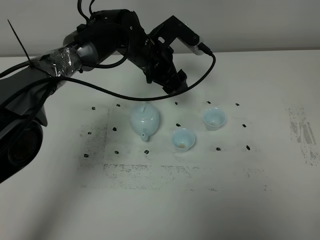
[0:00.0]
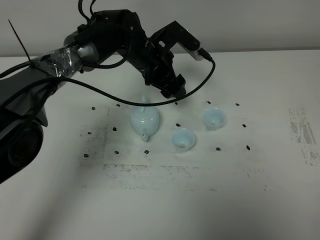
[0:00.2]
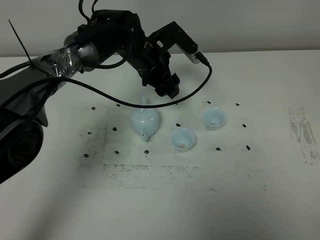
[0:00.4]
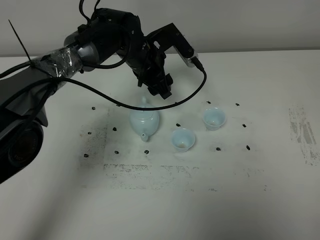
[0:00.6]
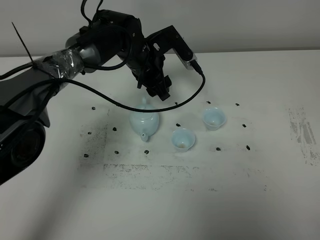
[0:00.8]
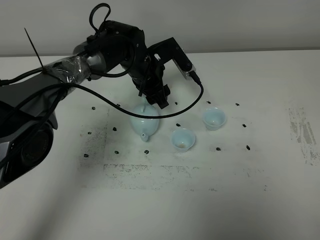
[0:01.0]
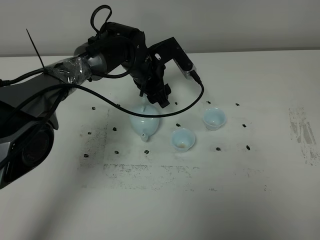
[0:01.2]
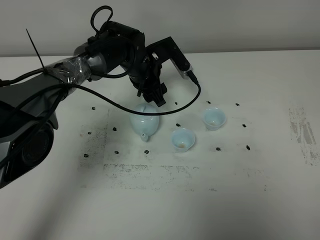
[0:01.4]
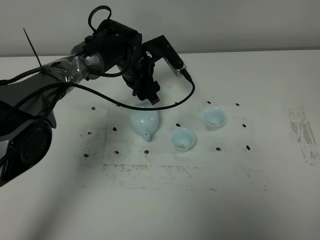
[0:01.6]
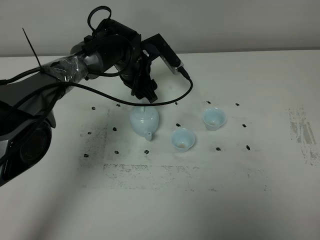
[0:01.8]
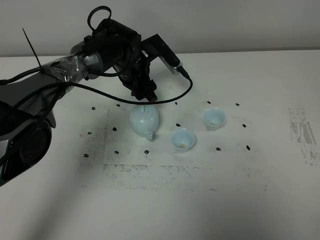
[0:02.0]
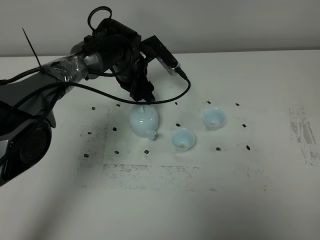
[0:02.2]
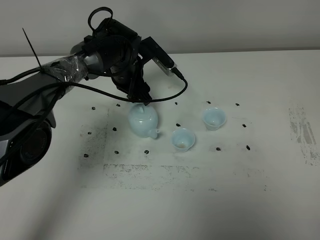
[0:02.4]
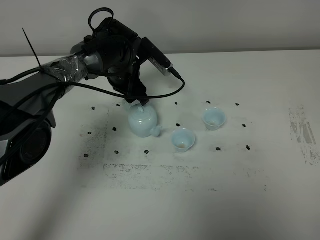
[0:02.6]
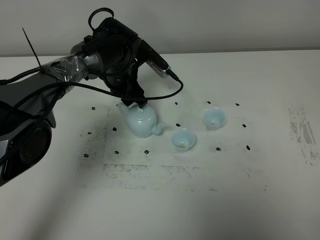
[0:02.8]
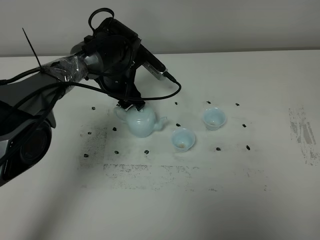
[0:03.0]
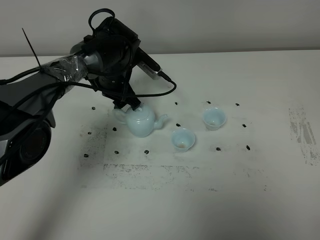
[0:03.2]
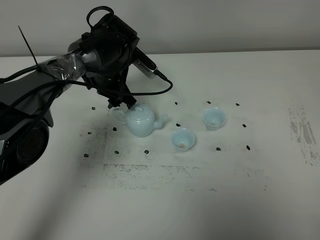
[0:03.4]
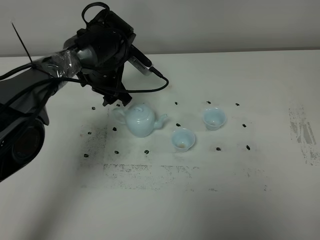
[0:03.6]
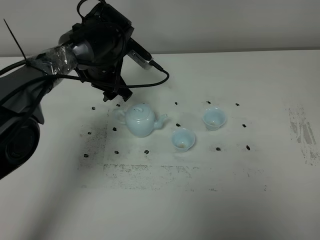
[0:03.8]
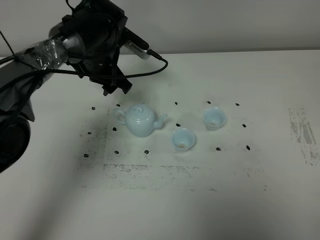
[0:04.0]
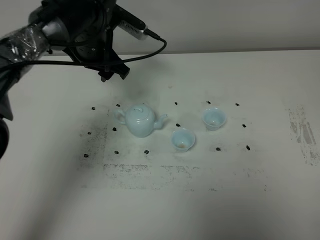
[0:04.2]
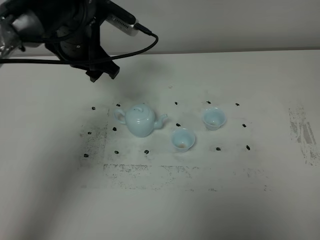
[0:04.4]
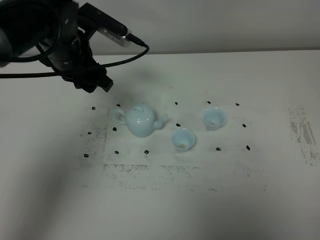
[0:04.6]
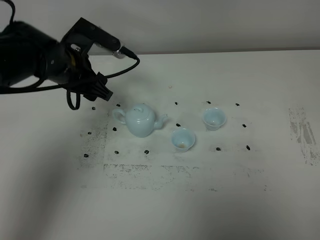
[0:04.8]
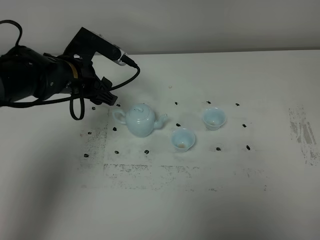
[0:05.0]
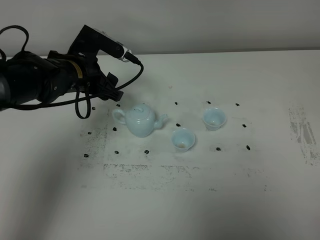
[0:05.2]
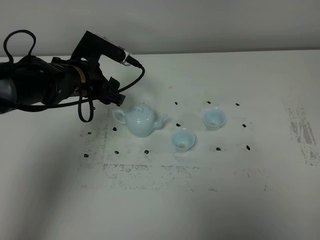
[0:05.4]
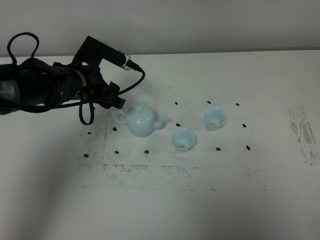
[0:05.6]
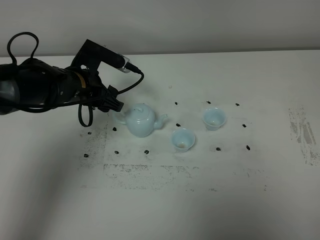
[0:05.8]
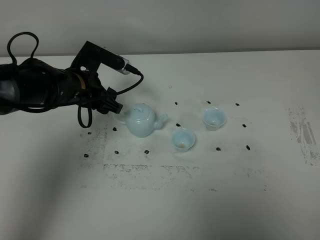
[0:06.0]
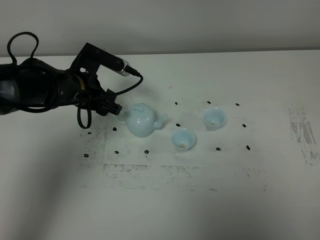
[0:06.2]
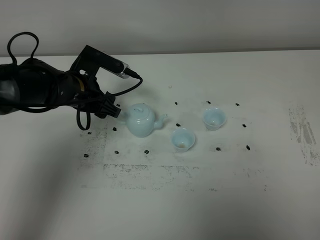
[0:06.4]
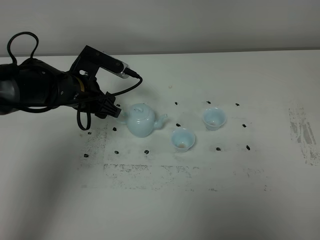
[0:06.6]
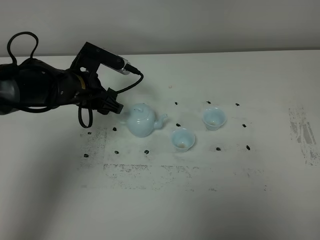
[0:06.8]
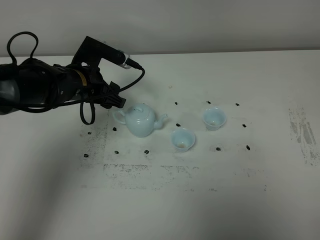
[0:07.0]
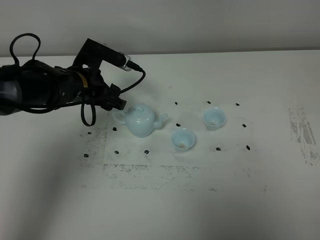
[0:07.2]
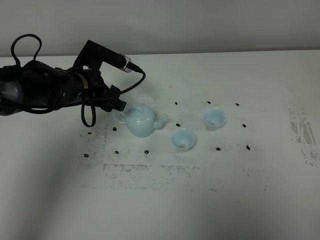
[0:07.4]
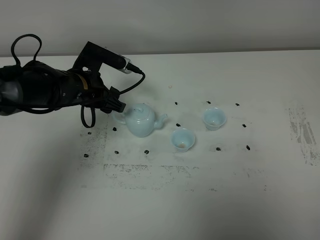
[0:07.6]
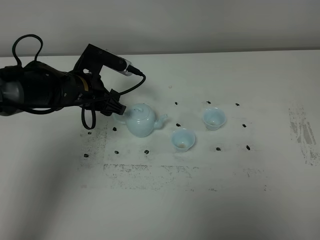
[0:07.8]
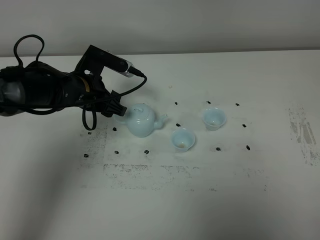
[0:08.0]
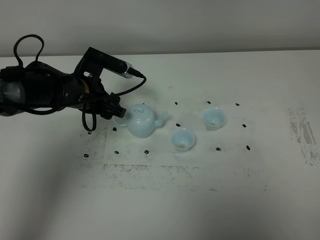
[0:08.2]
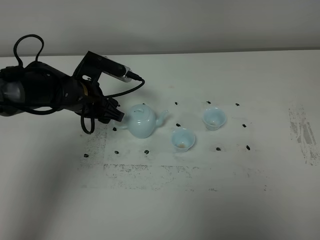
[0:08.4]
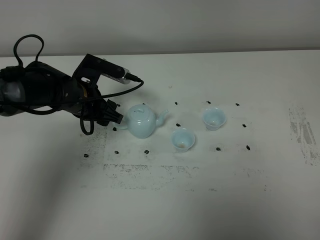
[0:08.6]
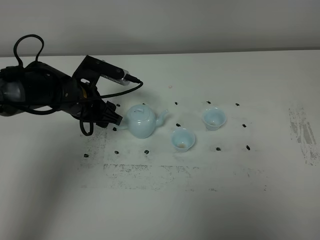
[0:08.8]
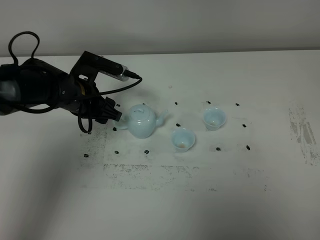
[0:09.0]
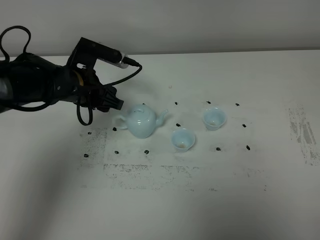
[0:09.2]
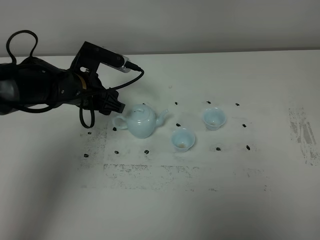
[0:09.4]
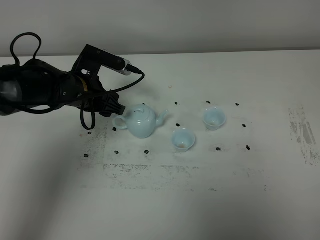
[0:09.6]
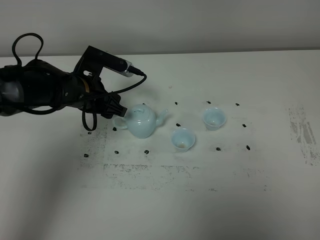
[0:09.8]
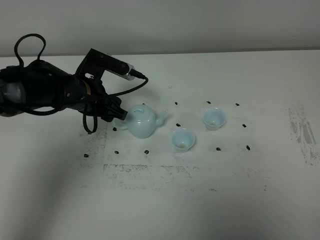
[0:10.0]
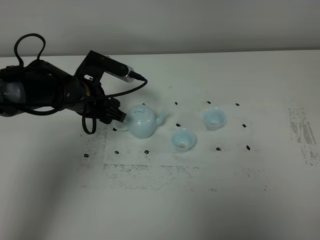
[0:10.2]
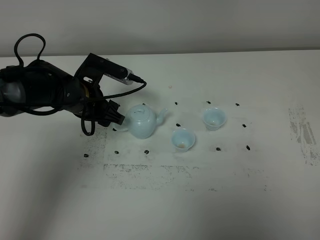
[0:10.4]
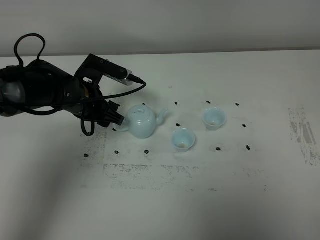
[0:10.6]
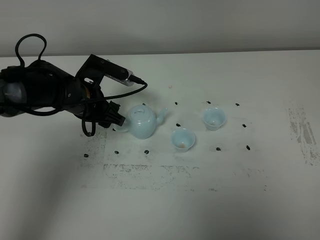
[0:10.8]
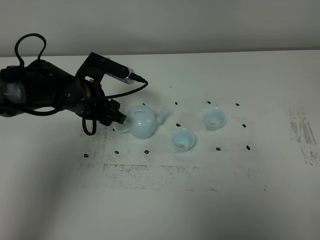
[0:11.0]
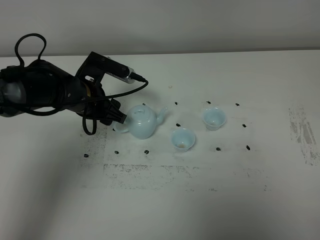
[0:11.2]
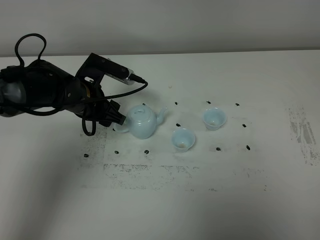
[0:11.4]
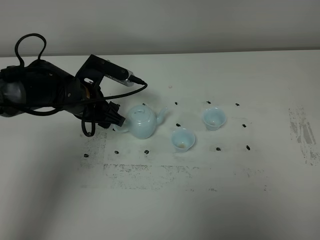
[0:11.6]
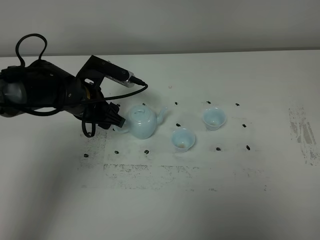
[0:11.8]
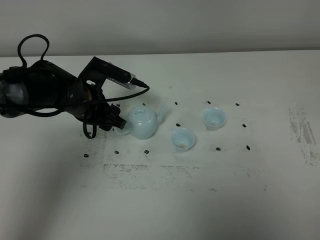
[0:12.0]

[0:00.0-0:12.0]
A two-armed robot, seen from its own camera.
Task of the whole recording: grasp the blue porcelain teapot and pour the tea into the two blue porcelain teacups one by one, put the blue porcelain teapot back in its original place.
0:00.0 to 0:01.6: The left gripper ends up about 5 cm from where it was.
0:03.0 to 0:04.4: The left gripper is displaced upward and backward by about 15 cm.
0:04.4 to 0:06.0: The left gripper heads downward, covering roughly 10 cm.
0:06.0 to 0:07.6: Both grippers stay about where they are.
0:07.6 to 0:10.4: There are only small adjustments of the grippers.
0:10.4 to 0:12.0: Neither gripper changes place.

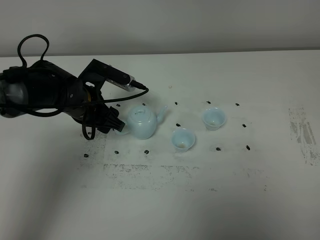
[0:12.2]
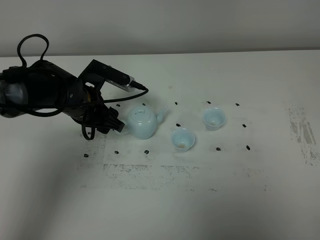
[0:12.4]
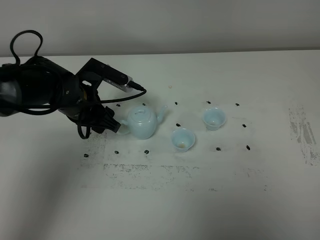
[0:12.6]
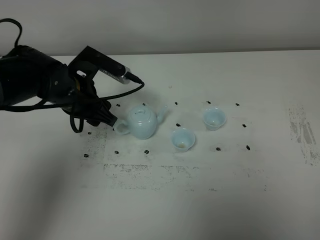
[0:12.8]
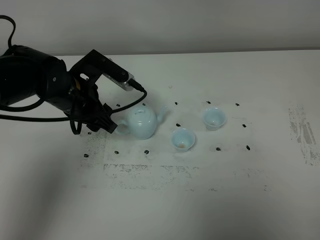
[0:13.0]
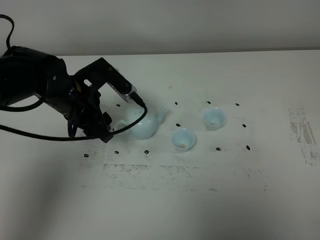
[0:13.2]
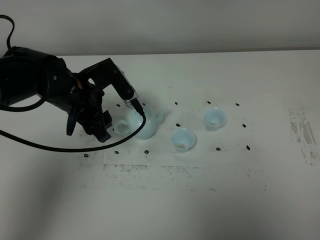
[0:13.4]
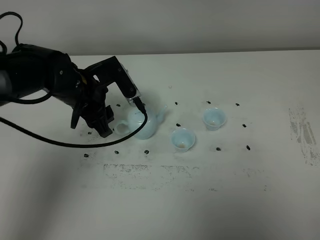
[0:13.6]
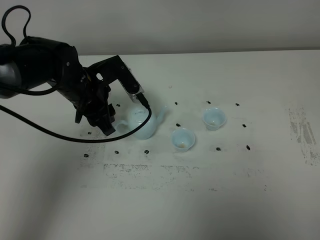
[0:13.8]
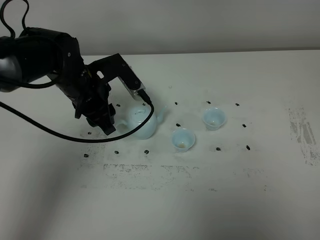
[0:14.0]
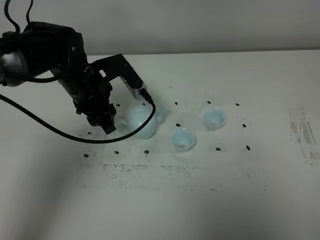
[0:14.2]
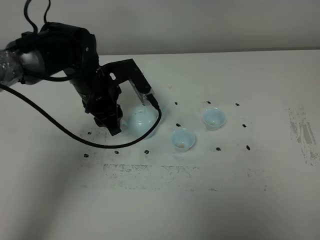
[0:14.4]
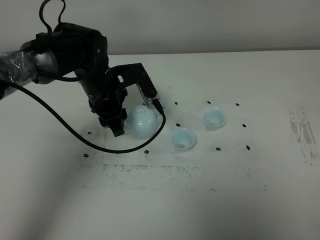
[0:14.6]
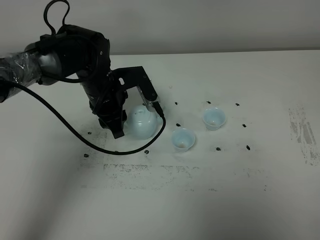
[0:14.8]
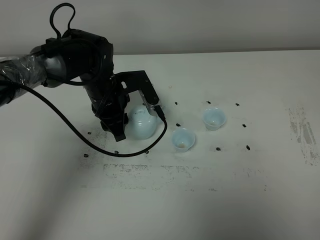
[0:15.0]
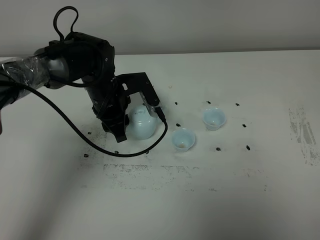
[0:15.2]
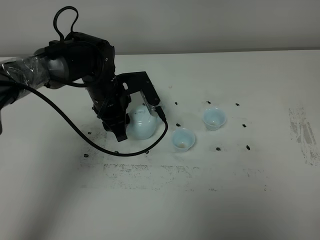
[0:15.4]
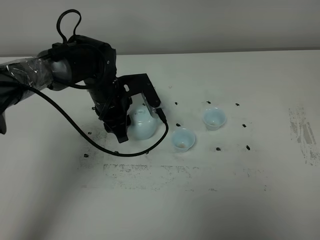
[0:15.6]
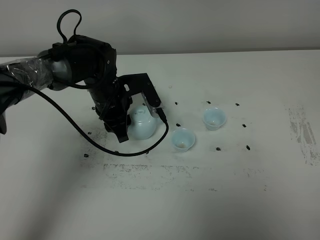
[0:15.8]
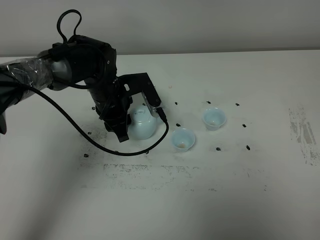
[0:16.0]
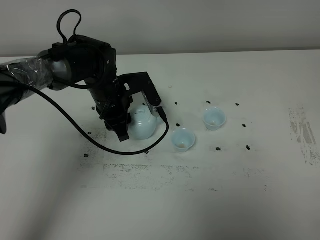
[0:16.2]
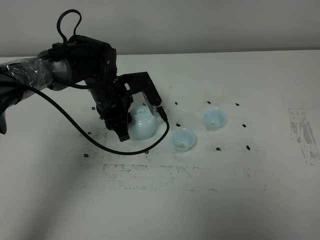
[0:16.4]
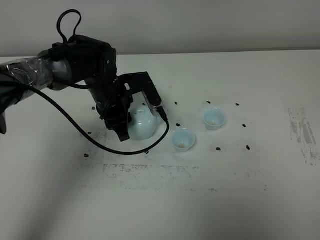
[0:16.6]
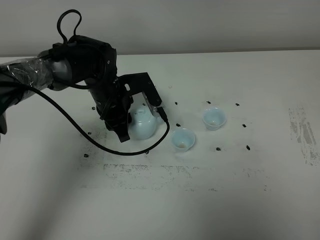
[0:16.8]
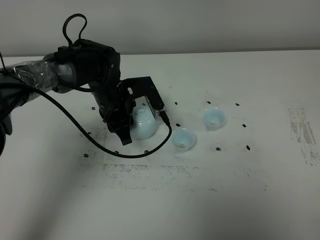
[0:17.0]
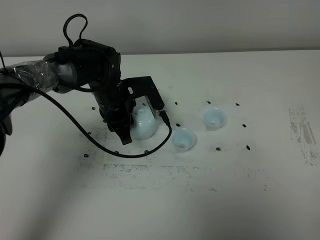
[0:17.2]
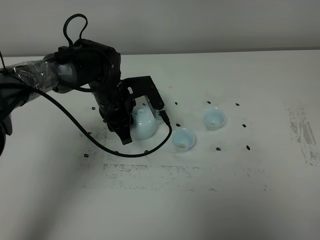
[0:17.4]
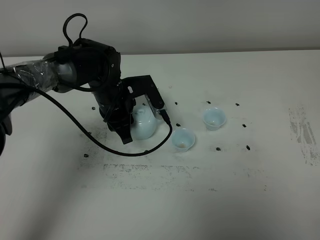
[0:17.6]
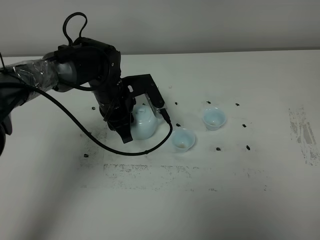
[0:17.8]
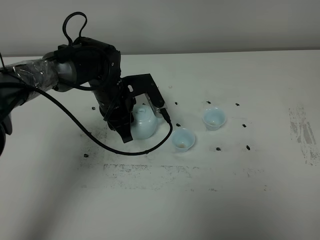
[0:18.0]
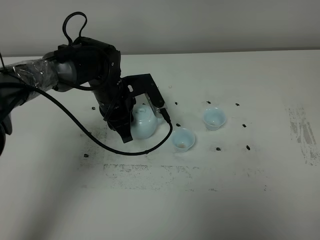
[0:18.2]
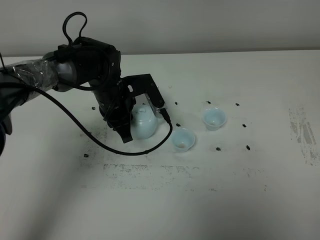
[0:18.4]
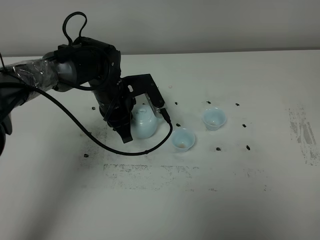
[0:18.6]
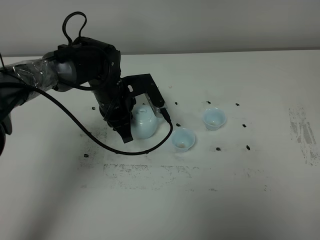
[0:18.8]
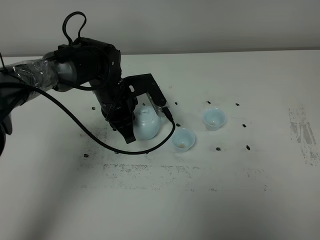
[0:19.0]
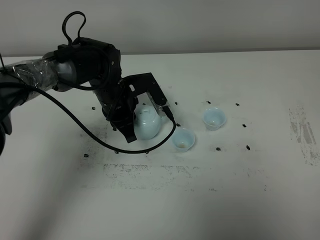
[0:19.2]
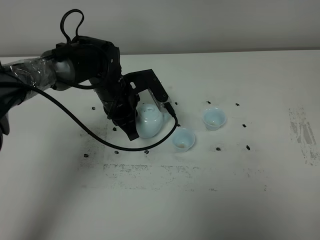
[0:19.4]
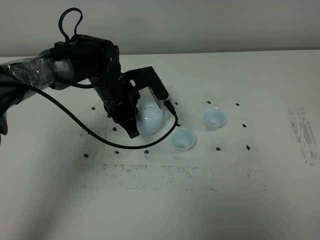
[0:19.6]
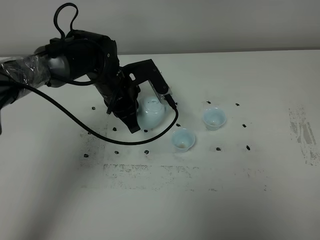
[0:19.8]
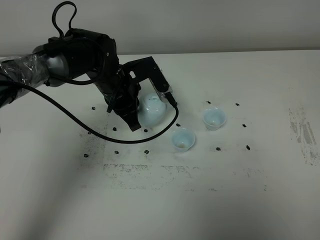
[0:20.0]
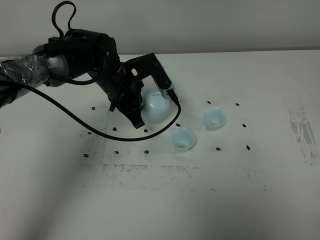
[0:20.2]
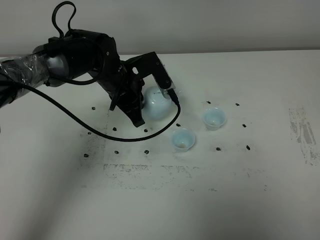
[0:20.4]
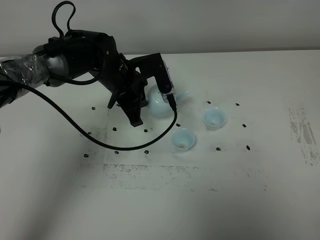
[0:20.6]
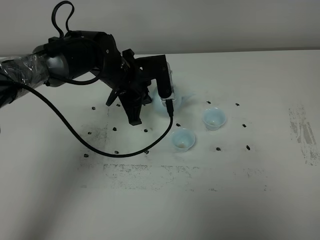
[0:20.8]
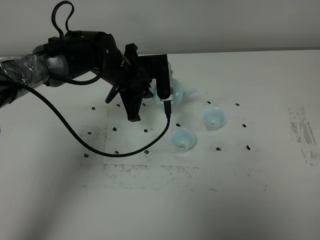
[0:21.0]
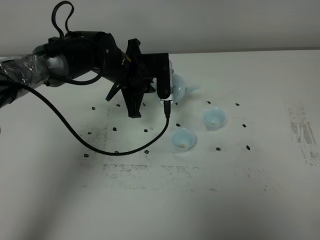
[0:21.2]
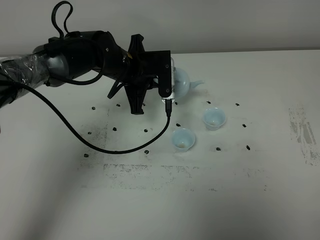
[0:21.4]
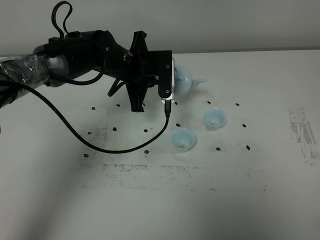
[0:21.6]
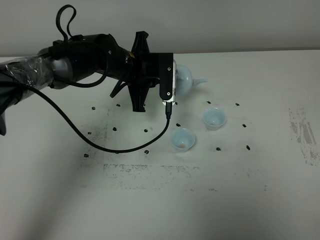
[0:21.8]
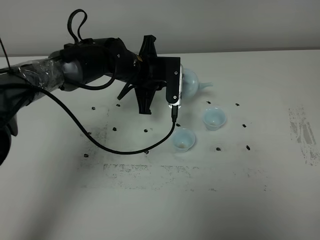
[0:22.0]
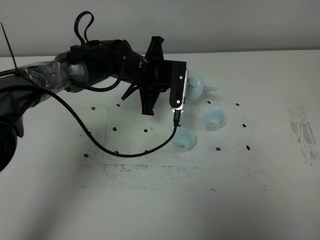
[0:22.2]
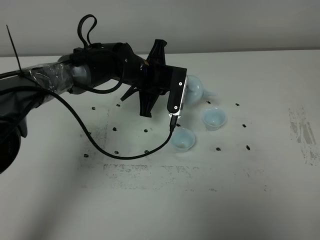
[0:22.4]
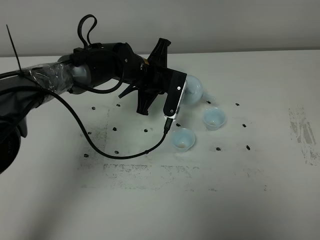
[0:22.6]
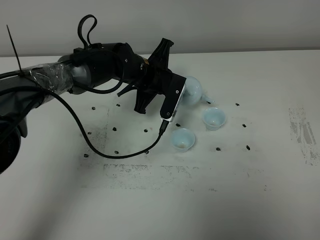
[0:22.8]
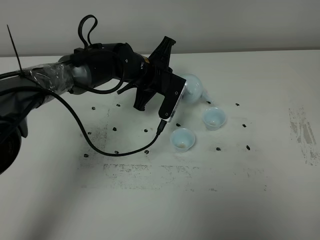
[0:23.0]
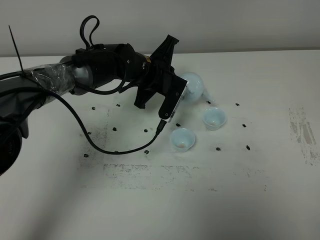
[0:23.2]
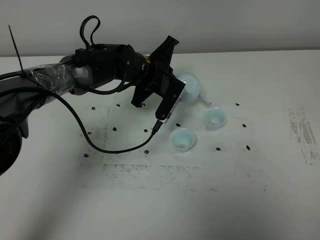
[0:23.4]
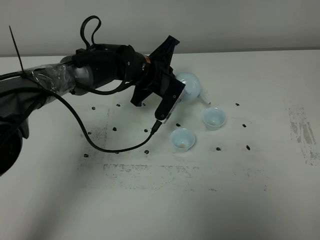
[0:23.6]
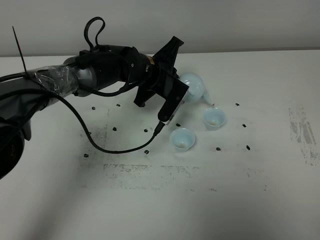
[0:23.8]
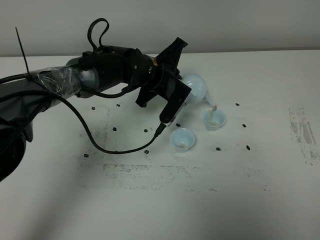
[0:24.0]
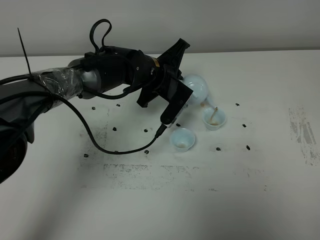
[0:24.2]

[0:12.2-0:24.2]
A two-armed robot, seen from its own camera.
Task of the whole recording: grasp the blue porcelain teapot and pour the tea into the two blue porcelain teacups one by one, put the blue porcelain teapot back in its original place.
Step, 0:12.2 to 0:19.6: Pick up the teapot with the left gripper.
0:13.8 to 0:15.2: The left gripper shifts by about 5 cm.
0:15.2 to 0:16.6: The two grippers keep their place.
0:16.6 to 0:18.2: Neither gripper changes place.
0:18.2 to 0:19.8: The grippers stay close to where they were, moving slightly.
